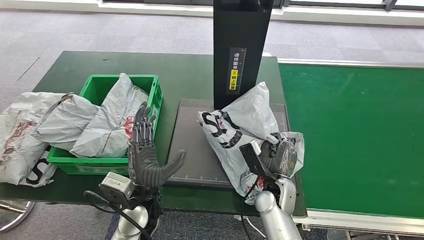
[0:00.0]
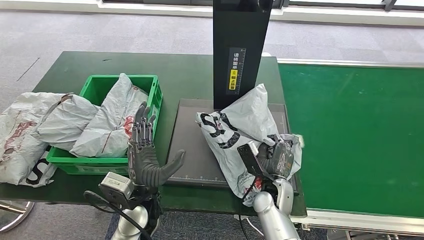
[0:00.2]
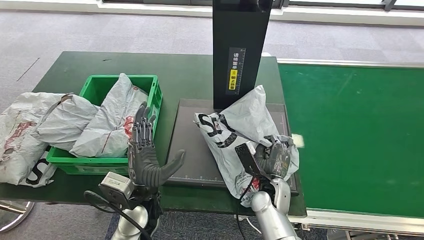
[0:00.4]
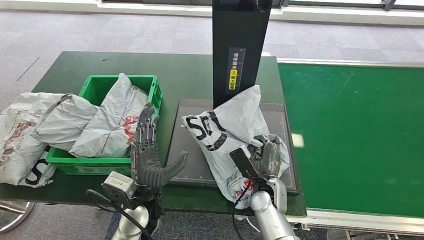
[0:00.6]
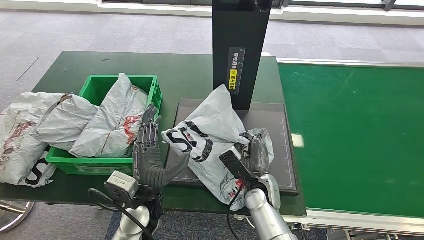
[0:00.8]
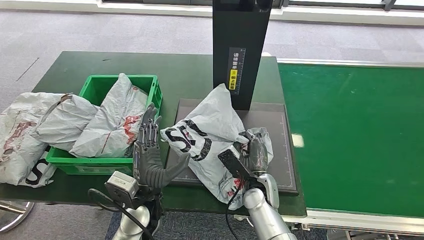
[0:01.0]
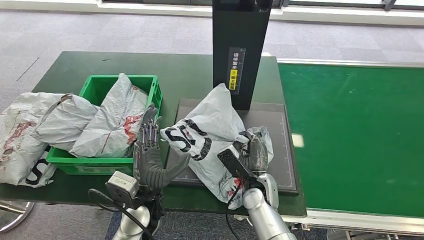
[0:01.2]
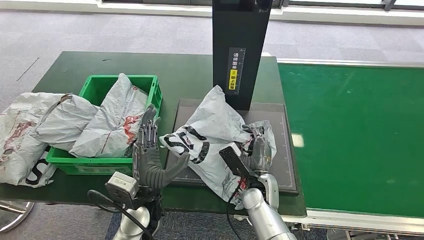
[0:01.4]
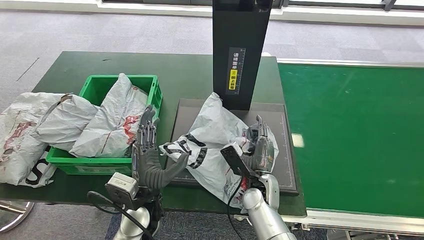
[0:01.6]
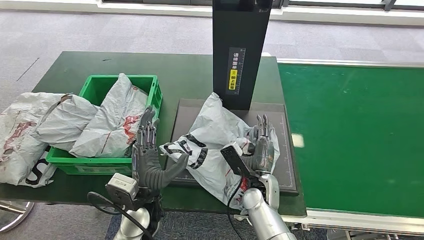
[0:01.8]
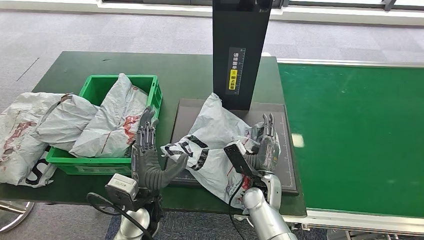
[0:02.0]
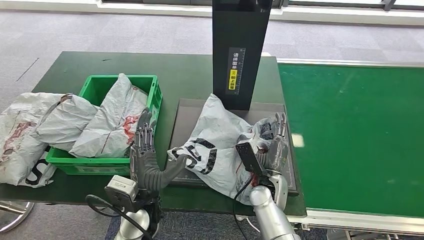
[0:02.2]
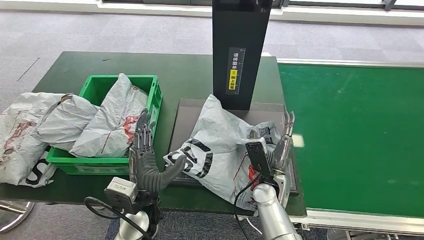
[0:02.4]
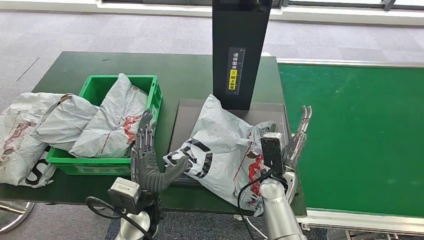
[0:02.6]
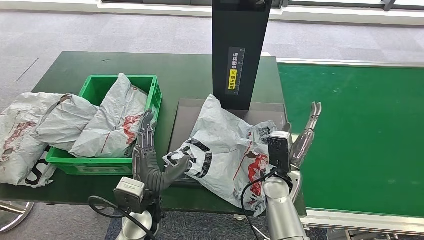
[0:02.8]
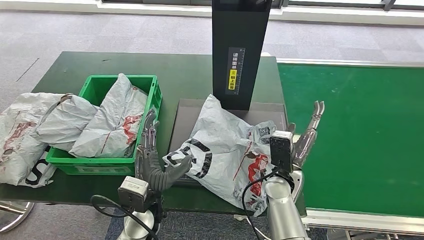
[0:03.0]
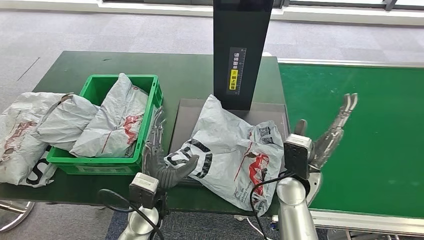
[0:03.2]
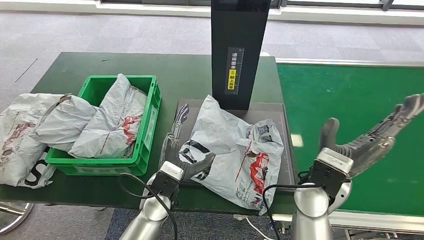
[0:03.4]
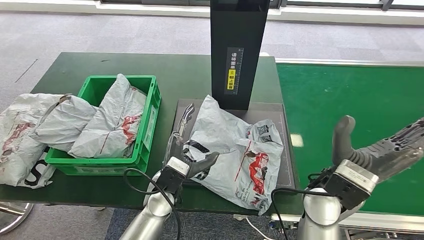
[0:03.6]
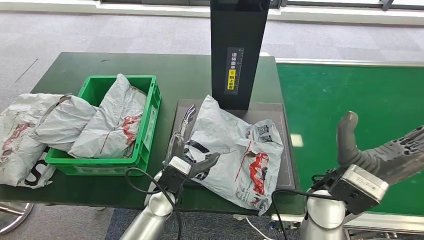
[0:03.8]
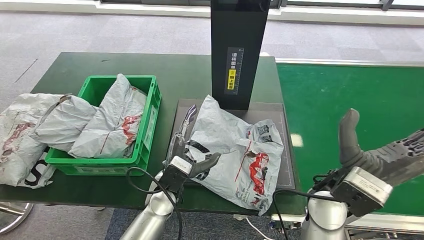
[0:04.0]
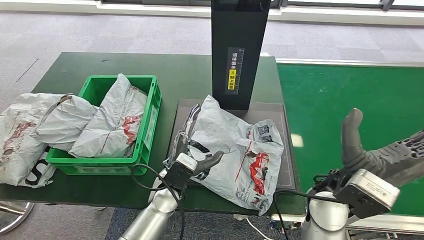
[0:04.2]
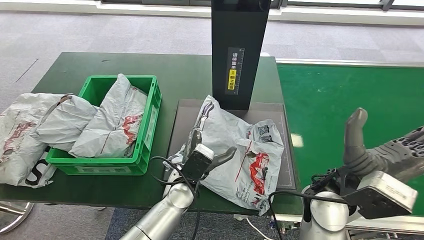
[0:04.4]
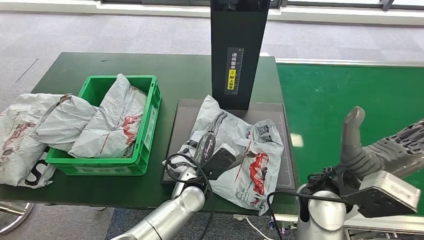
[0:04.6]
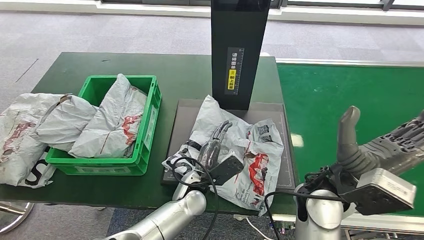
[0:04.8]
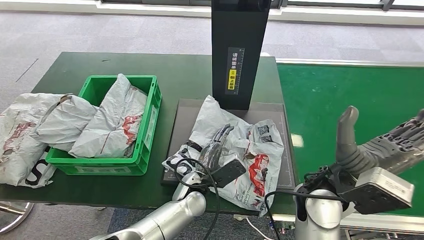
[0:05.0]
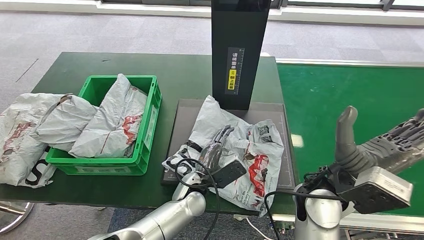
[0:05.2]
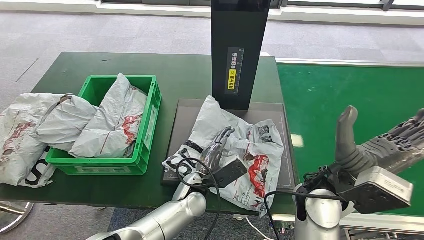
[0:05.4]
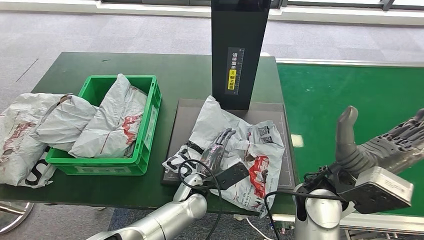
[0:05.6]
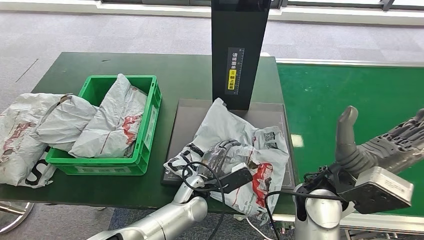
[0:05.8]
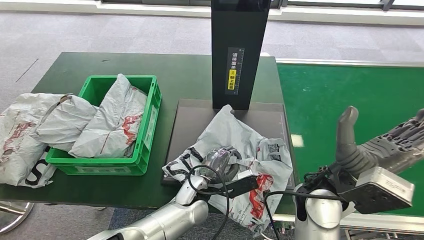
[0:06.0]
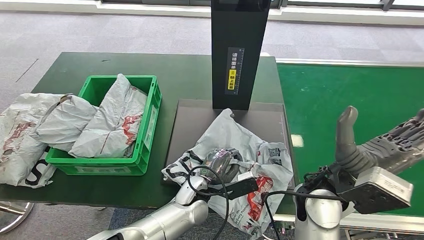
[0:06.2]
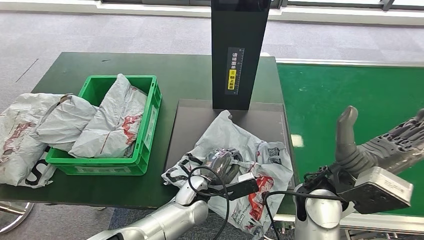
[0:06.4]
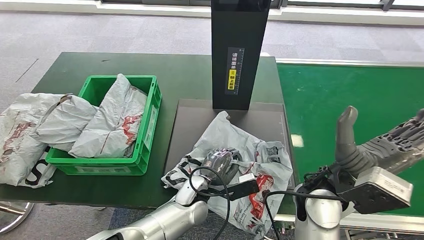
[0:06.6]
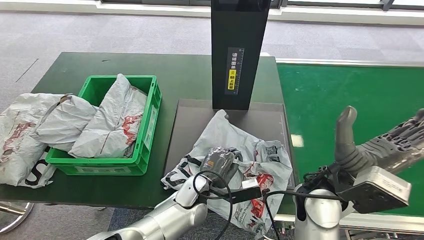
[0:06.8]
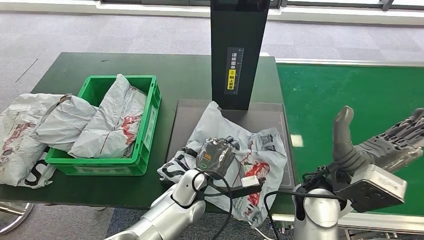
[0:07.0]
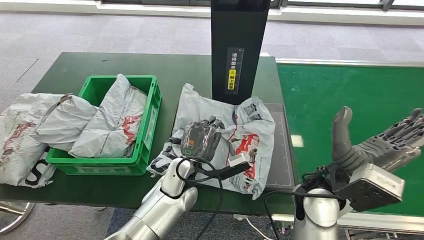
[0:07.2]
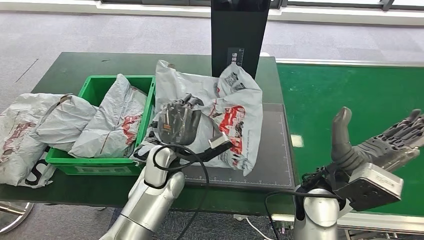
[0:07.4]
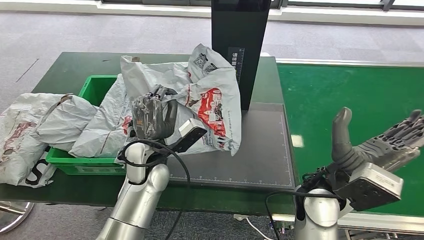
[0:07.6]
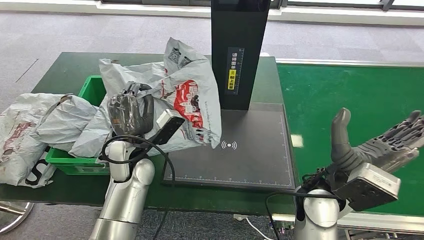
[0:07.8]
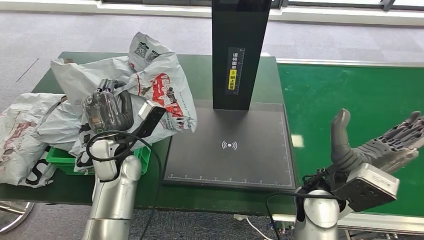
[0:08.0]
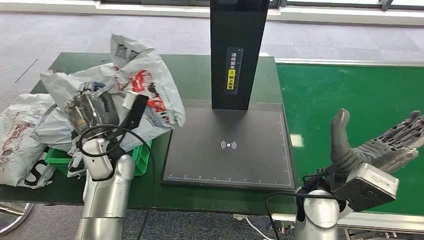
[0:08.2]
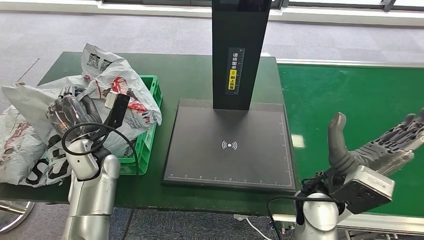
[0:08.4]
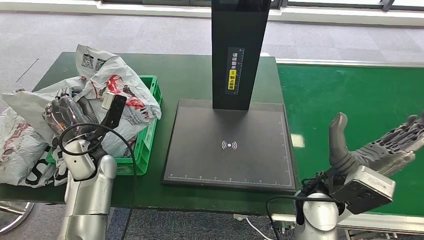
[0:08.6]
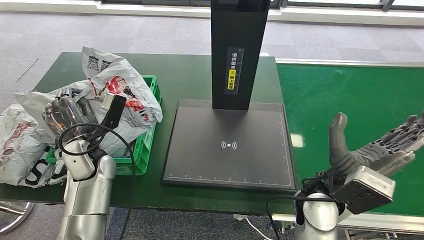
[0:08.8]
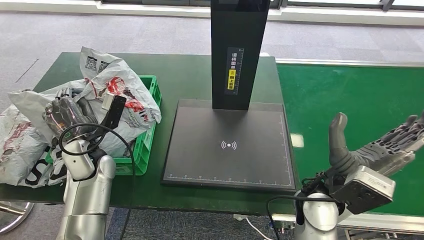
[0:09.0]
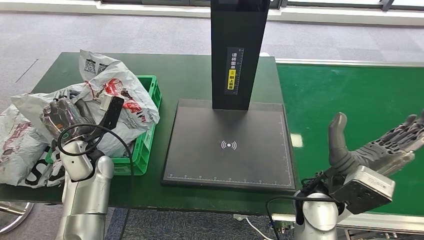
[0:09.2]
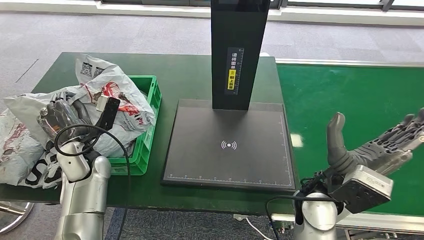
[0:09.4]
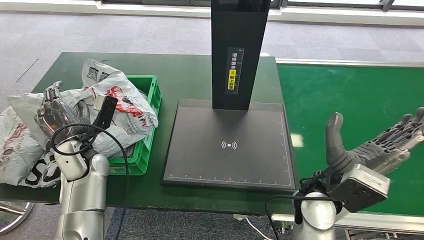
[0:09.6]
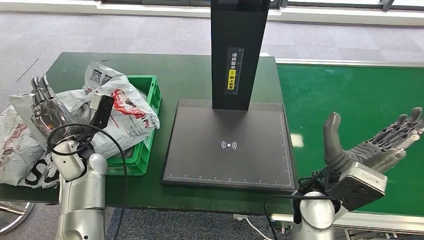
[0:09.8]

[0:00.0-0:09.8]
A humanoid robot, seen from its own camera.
Step, 0:00.0 to 0:03.0: Place the parcel onto the inbound machine.
Step, 0:03.4 to 0:07.8: Pick up the parcel from the inbound machine.
0:01.4 to 0:02.8: The right hand ends up about 5 cm from where it was.
0:02.8 to 0:04.2: The left hand ends up roughly 5 cm from where it was. Meanwhile the right hand moves upward and to the right, about 15 cm.
0:04.2 to 0:05.6: The left hand travels to the right by some 5 cm.
0:08.4 to 0:09.8: There are only small adjustments of the hands.

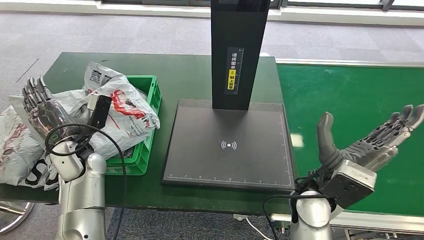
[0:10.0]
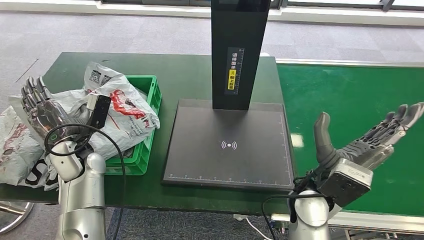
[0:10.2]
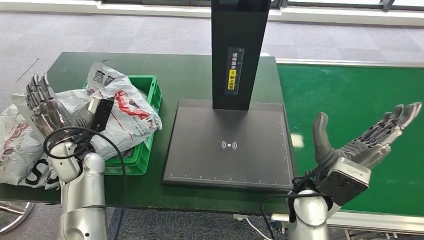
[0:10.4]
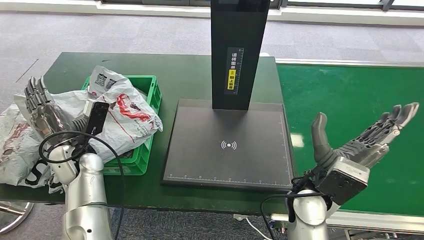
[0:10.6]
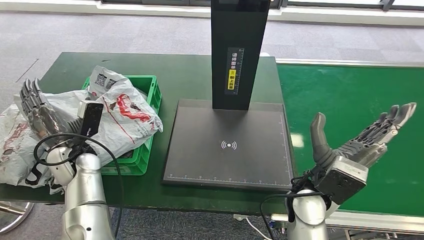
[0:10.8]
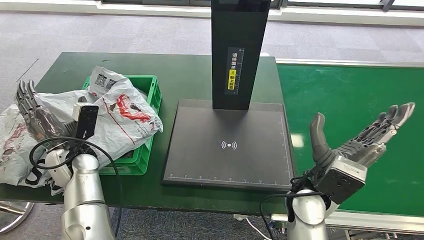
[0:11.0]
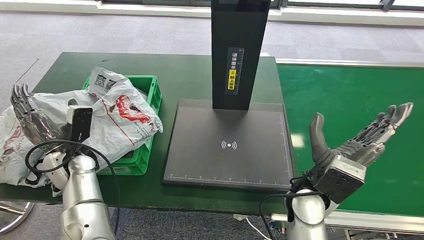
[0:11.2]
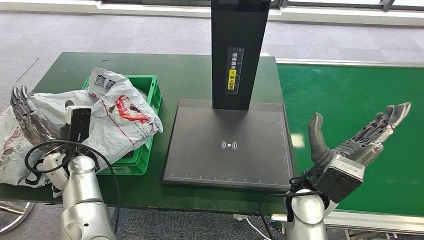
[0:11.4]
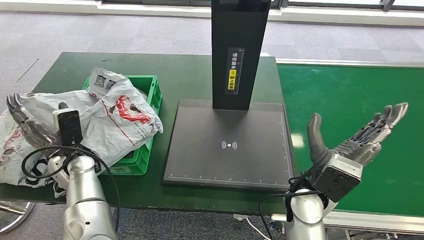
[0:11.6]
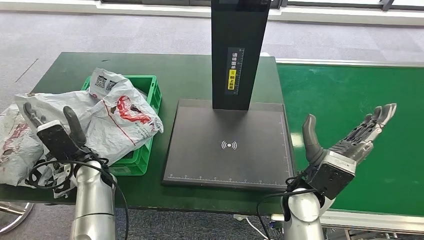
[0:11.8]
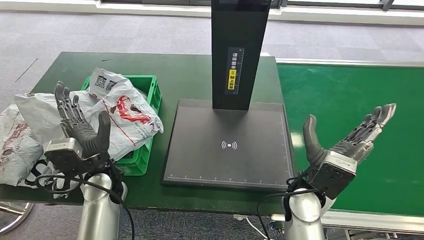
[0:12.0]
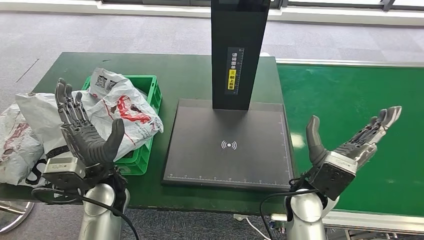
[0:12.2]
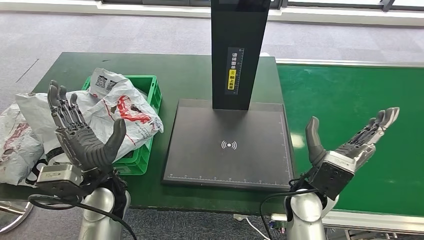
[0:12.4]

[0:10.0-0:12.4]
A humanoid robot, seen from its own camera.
Step, 0:10.0 to 0:12.4: Place the parcel into the delivery box.
0:10.0 to 0:11.2: The hands stay close to where they were, moving slightly.
0:11.2 to 0:12.4: The left hand shifts about 15 cm to the right and backward.

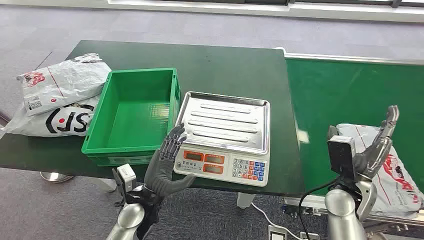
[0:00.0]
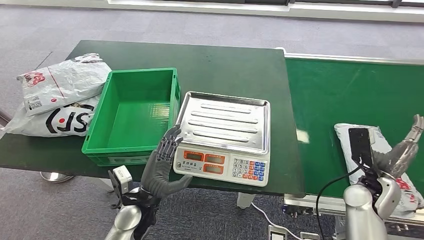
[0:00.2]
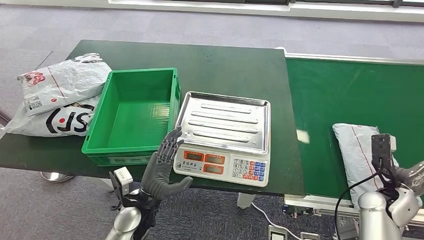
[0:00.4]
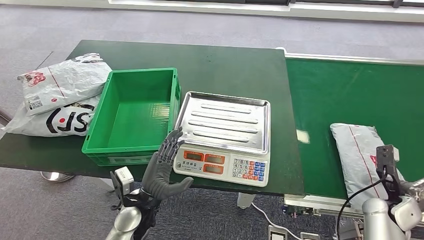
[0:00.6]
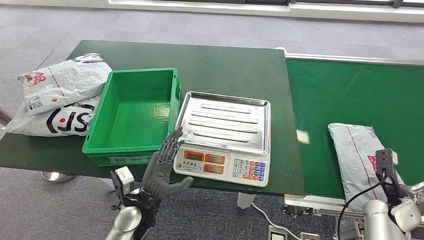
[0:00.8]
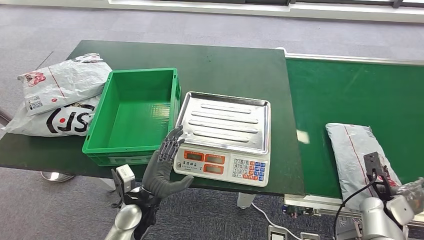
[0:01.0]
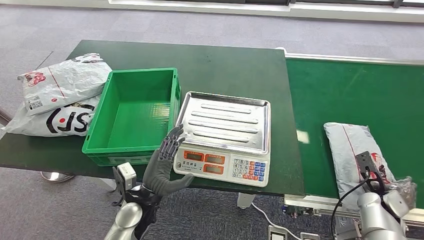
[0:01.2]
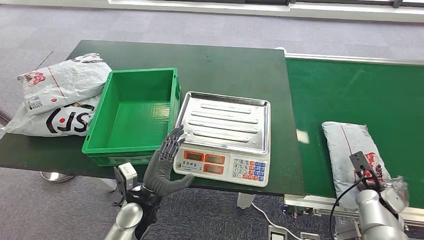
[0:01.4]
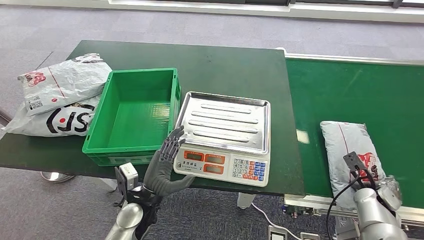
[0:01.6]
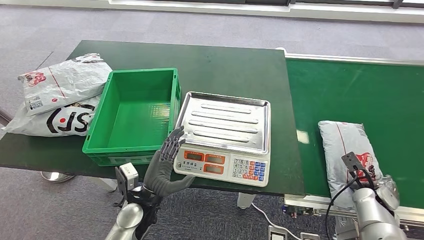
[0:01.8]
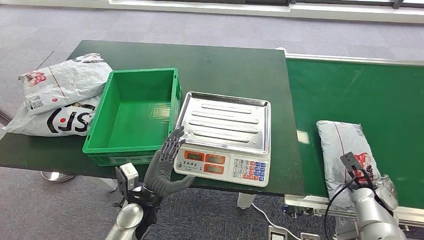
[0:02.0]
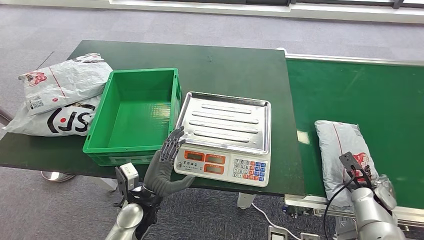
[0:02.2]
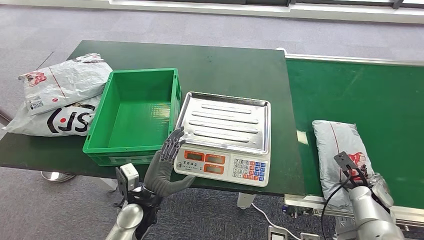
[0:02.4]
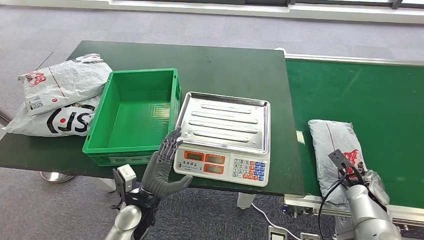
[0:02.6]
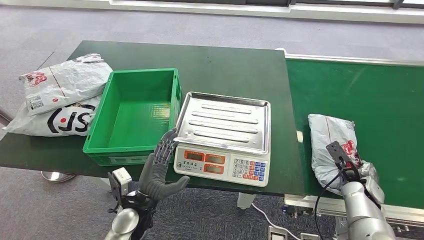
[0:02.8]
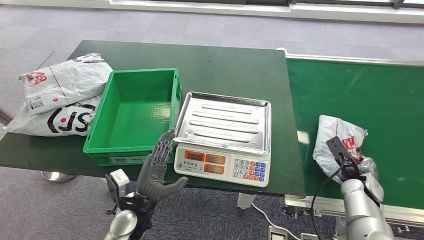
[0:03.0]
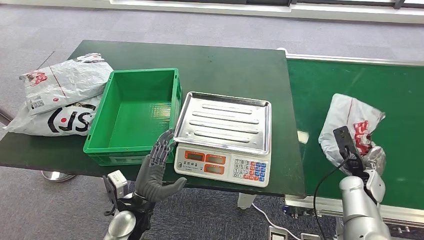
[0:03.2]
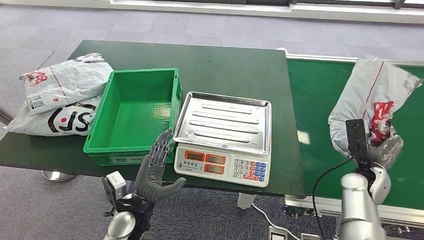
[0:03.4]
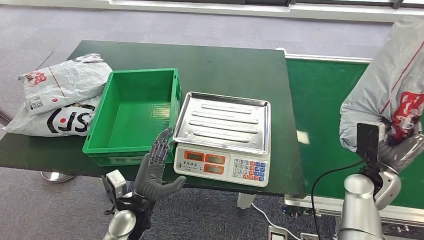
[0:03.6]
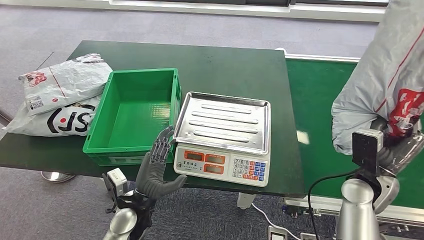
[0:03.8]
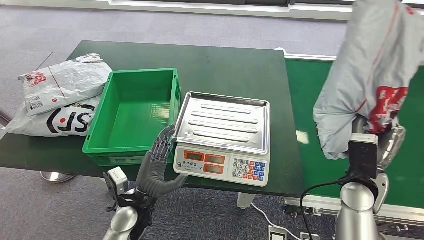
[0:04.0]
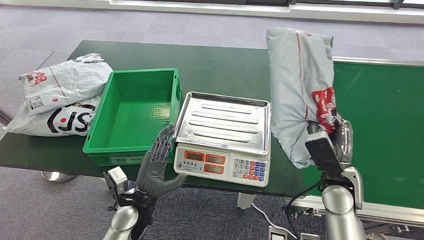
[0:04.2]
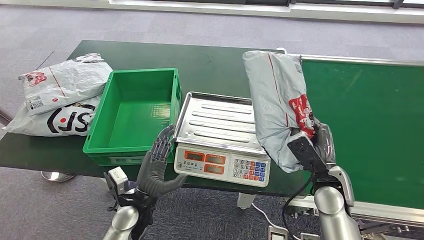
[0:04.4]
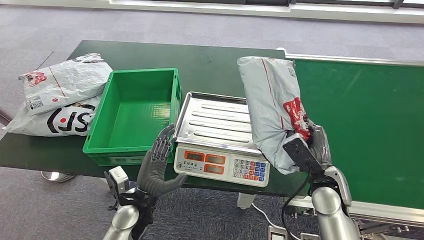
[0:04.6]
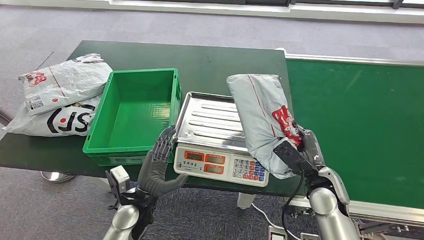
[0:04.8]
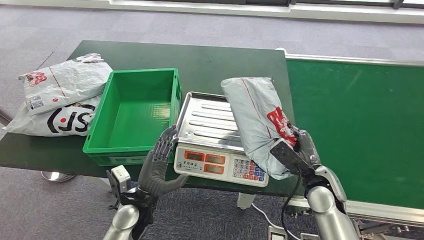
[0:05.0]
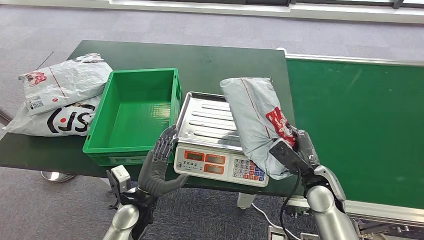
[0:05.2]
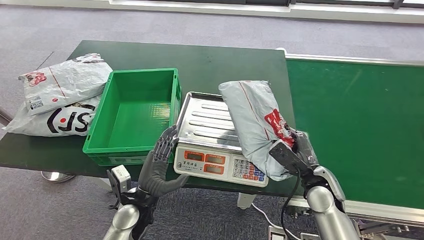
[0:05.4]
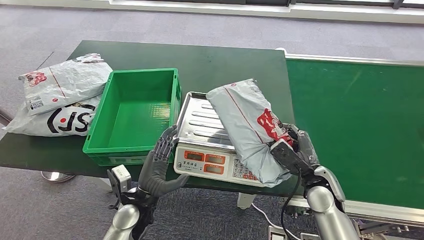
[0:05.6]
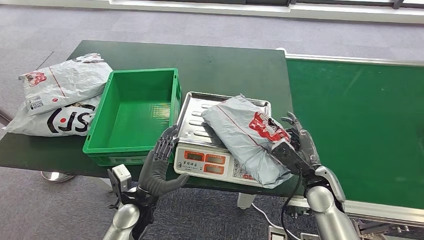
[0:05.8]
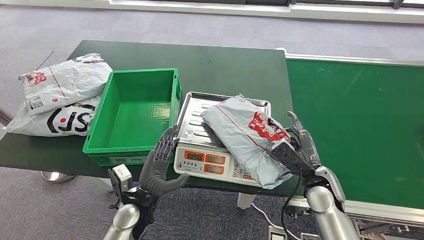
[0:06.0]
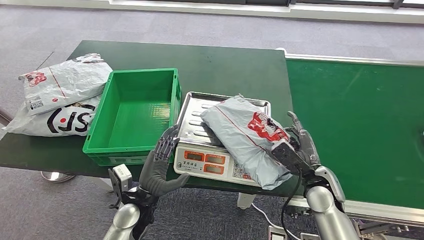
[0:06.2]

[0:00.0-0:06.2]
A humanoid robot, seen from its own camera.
Step, 0:00.0 to 0:03.8: Take the parcel off the conveyor belt.
0:01.6 to 0:03.2: The right hand heads to the left, covering about 5 cm.
0:03.2 to 0:04.6: The right hand travels to the left by some 15 cm.
0:04.6 to 0:06.2: The hands move only a little.
